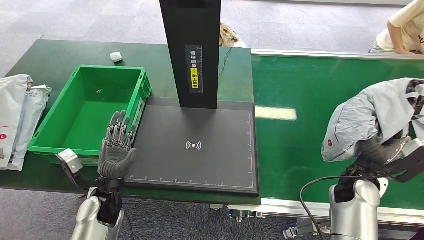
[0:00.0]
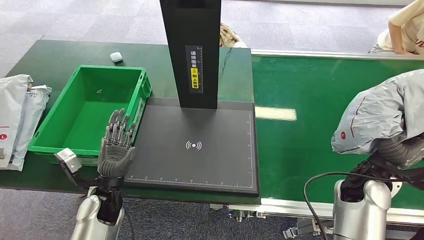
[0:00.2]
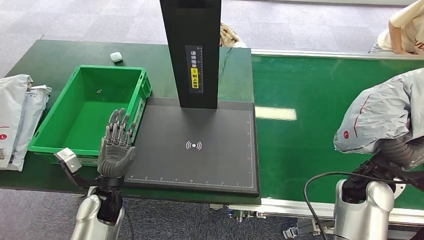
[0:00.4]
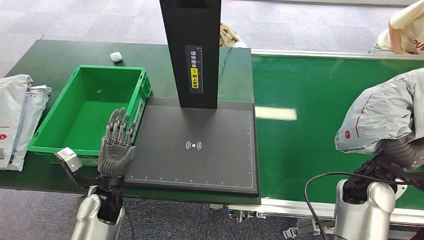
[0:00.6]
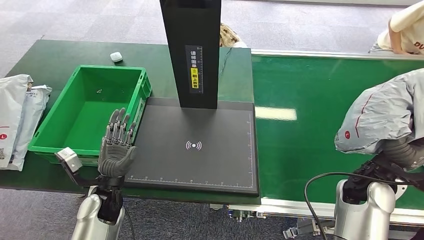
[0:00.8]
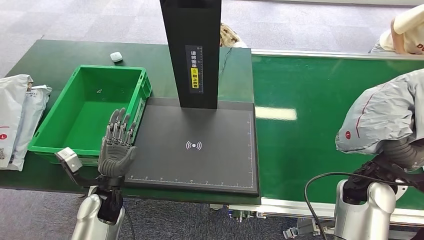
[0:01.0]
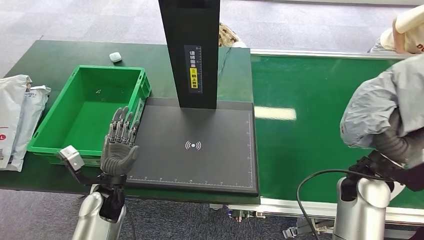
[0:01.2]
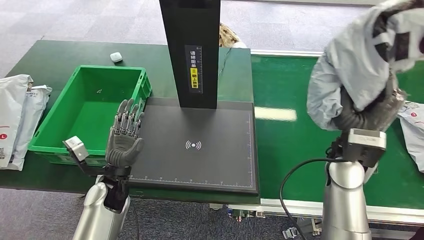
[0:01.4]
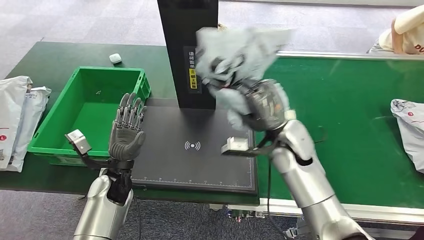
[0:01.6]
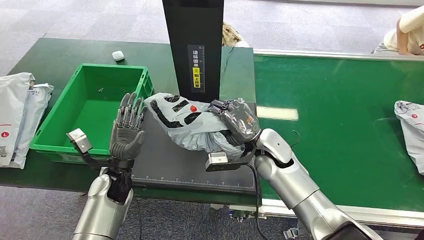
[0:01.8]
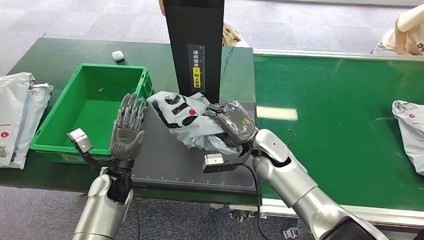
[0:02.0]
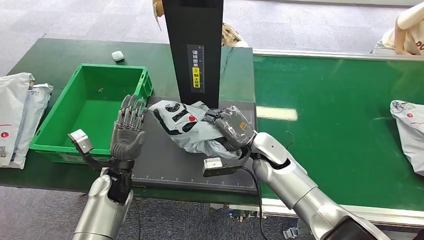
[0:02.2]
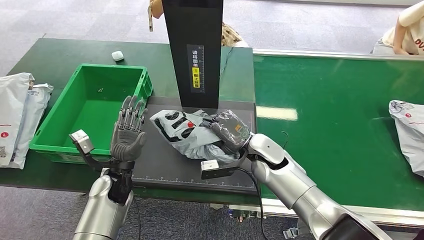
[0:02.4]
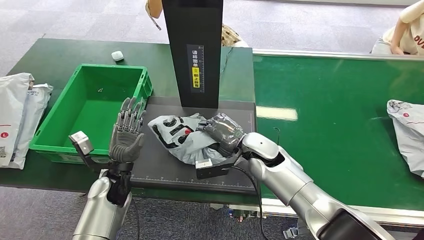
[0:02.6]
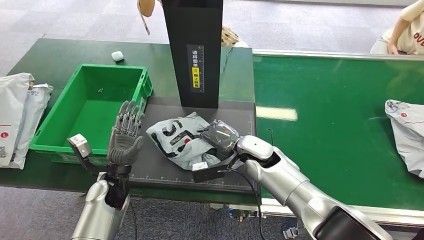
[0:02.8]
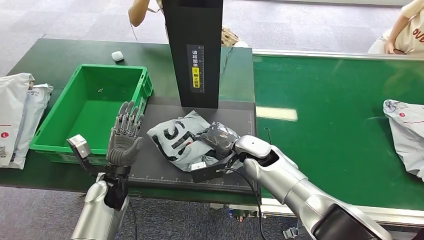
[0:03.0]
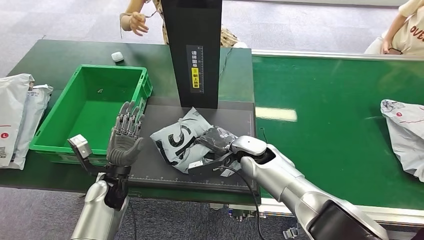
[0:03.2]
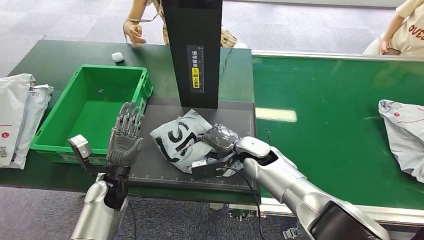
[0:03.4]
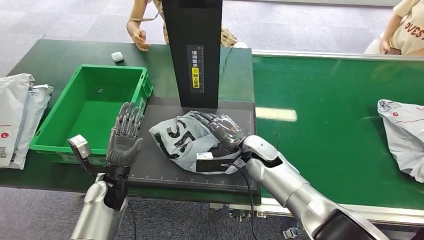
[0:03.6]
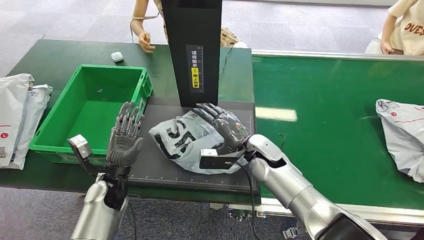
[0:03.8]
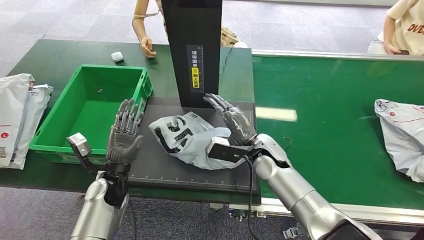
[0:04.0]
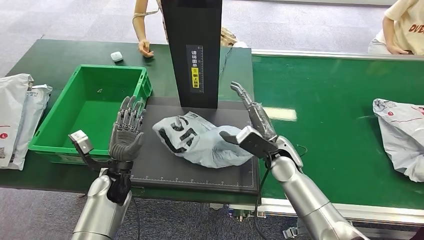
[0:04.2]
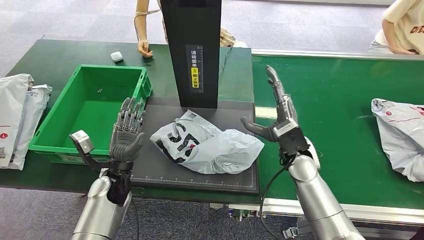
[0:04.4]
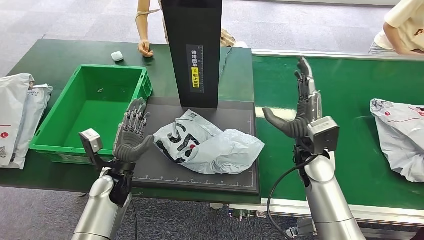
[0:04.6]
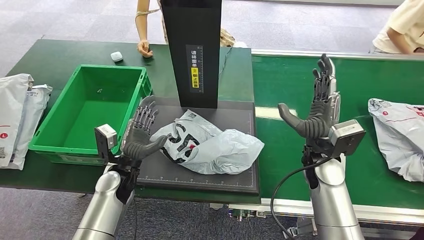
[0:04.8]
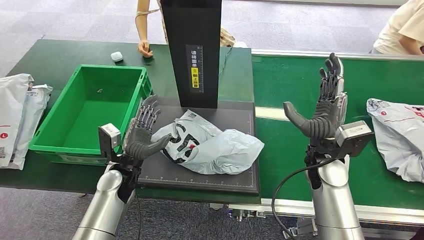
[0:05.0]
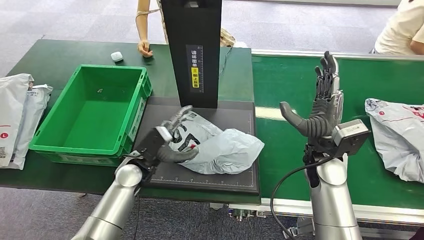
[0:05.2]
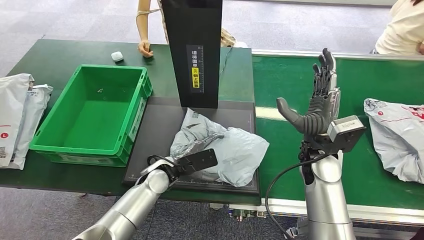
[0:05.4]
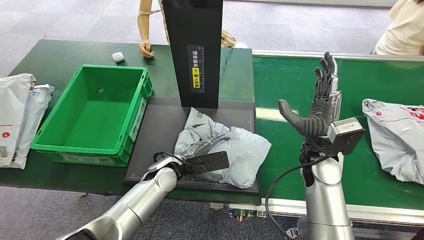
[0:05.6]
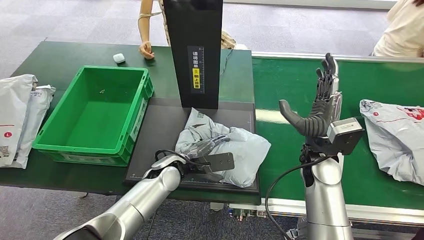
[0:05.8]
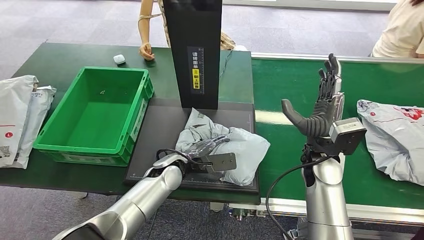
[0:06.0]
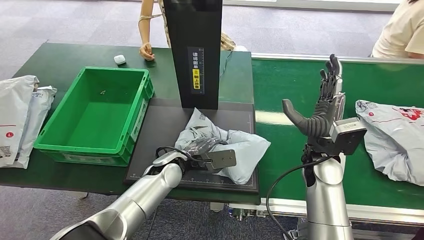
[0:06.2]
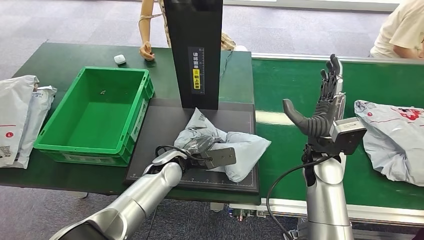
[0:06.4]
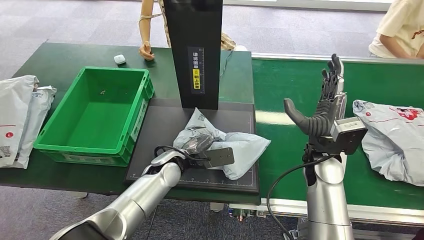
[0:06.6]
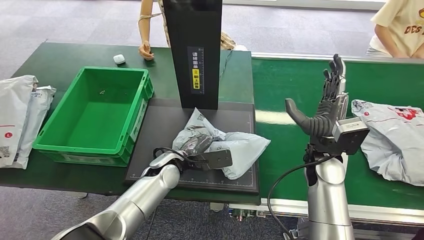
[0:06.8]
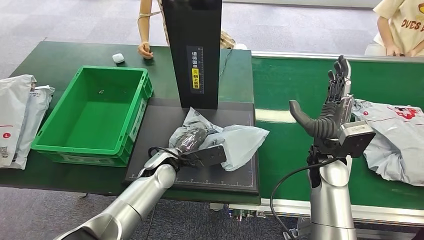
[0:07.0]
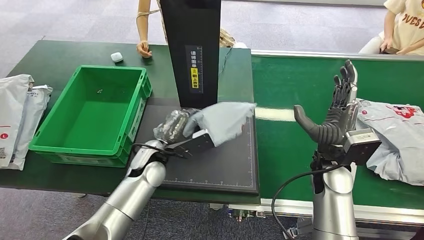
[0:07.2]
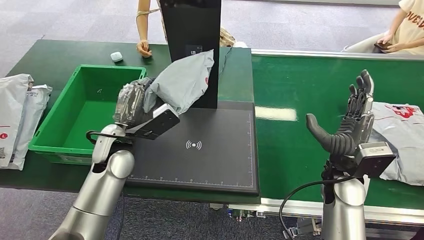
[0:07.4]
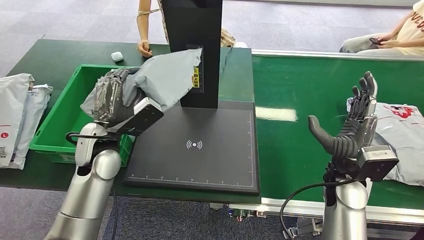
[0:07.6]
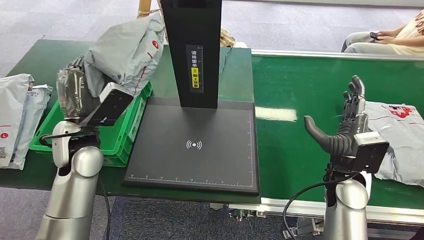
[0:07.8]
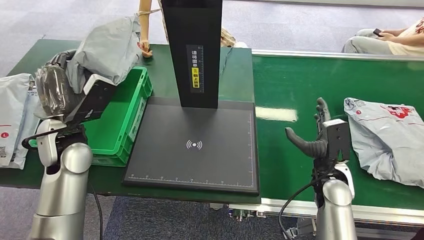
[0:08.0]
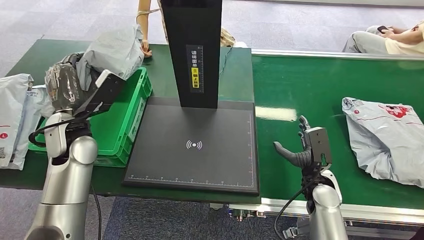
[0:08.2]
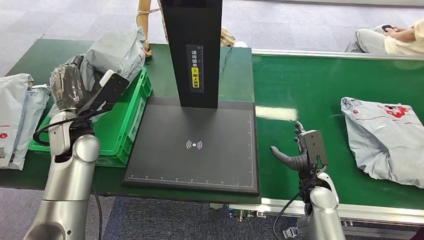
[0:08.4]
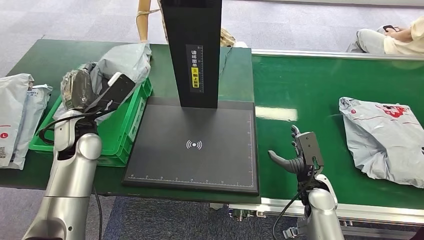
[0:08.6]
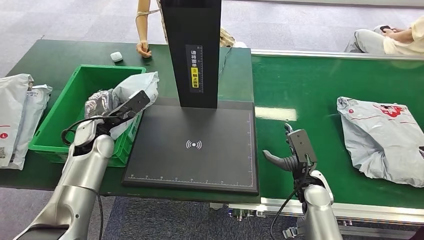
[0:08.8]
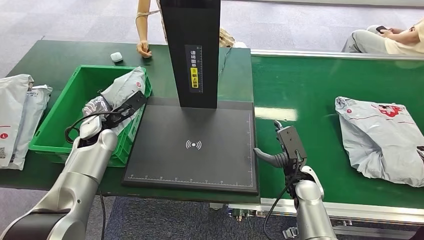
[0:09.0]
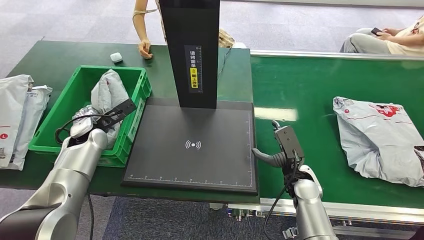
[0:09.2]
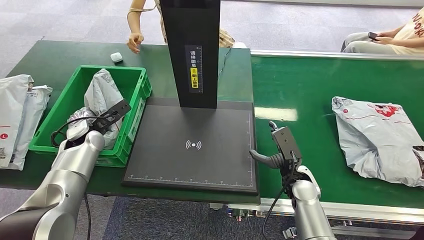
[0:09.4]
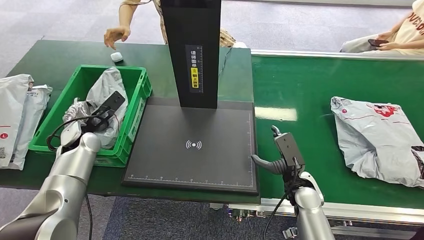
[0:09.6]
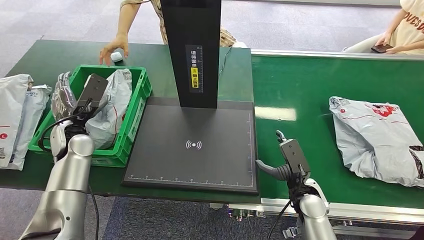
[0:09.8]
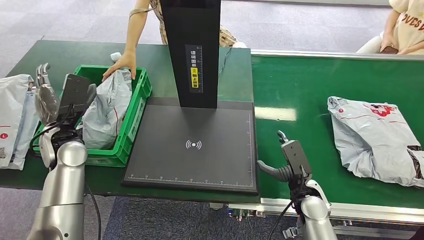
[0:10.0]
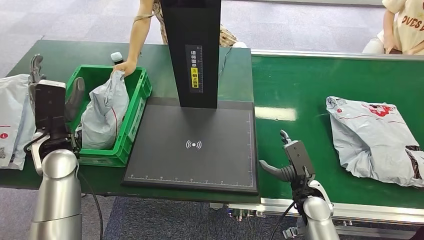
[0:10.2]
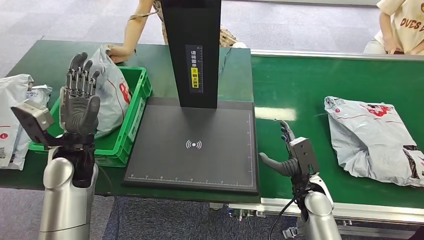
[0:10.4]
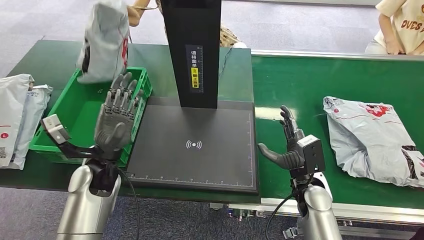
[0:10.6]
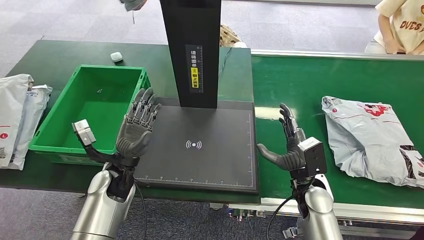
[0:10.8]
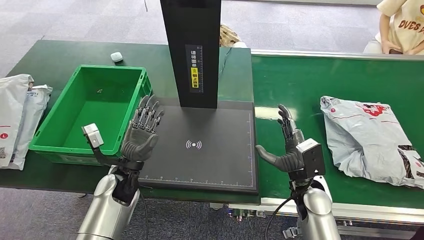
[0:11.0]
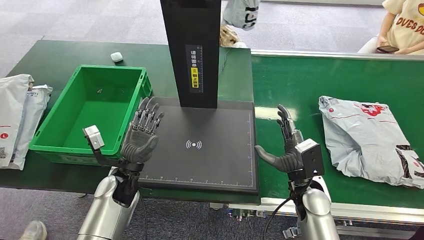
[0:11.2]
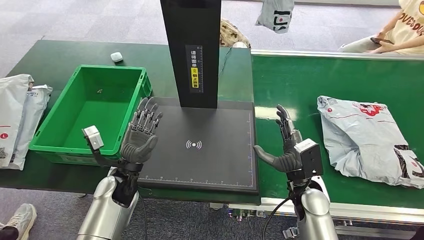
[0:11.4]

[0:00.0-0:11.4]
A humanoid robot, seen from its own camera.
Step, 0:00.0 to 0:04.4: Place the package onto the inbound machine.
Step, 0:04.8 to 0:07.4: Pick up the package from the inbound machine.
Step, 0:08.0 to 0:11.4: Place the package into the parcel locker.
